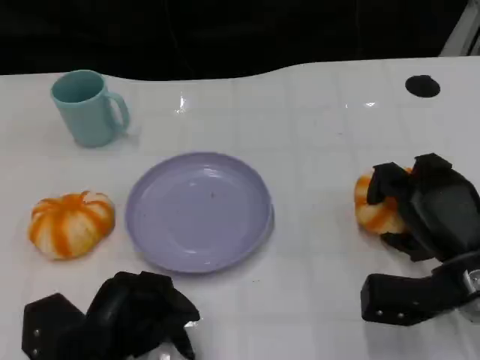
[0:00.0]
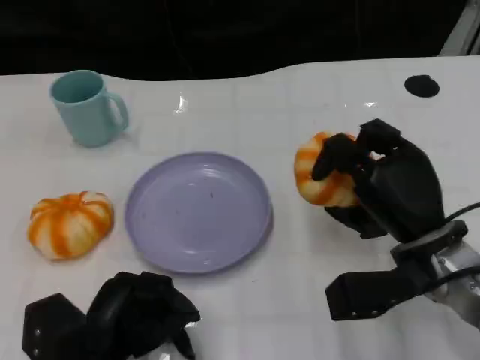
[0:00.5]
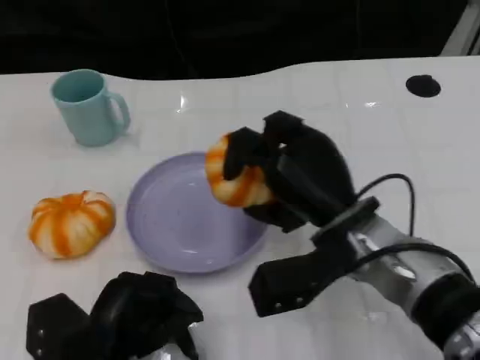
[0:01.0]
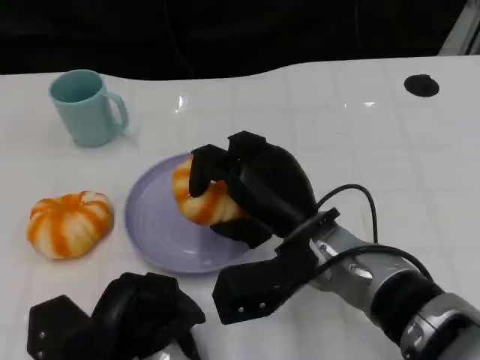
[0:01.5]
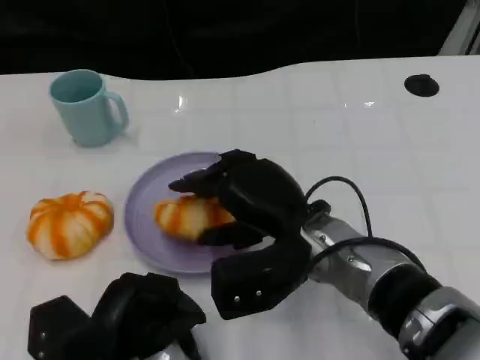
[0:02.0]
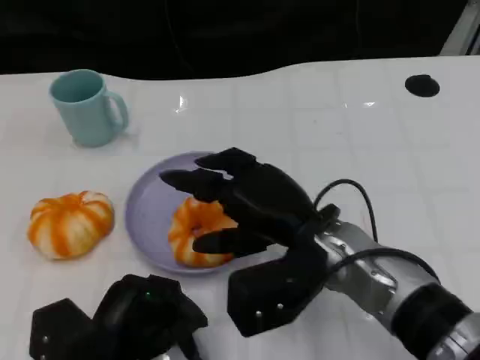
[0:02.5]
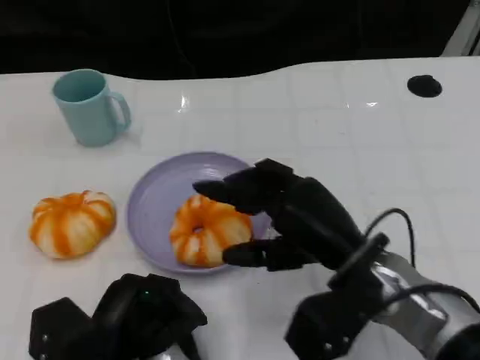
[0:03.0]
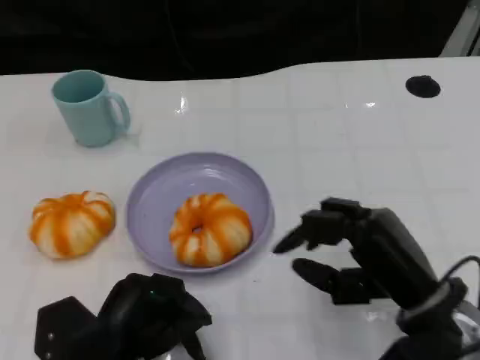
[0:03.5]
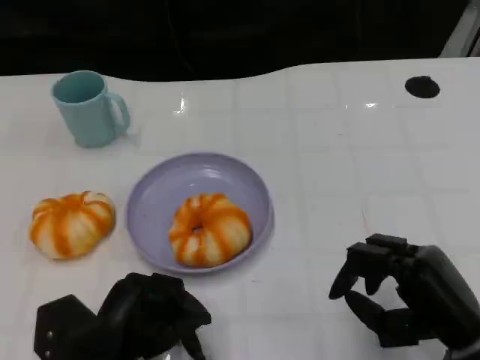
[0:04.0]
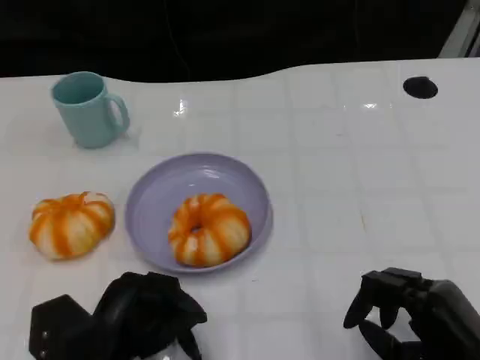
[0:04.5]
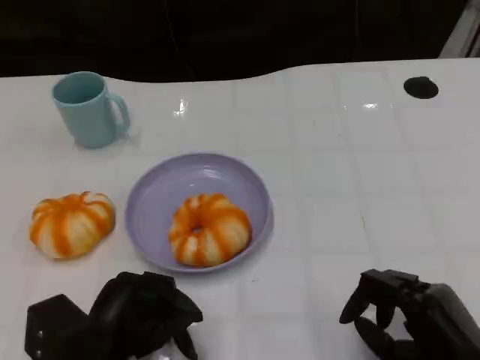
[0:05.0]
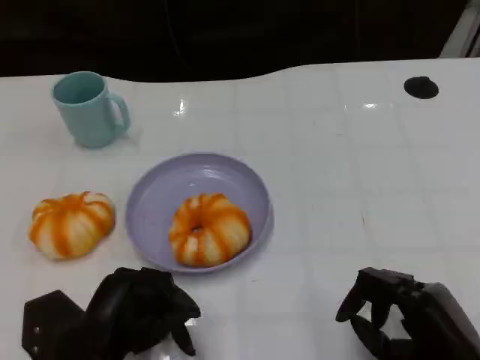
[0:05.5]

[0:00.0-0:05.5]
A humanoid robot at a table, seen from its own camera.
Task of the whole recording: Grasp the bread from the table and place it into the plate.
0:00.0 to 0:02.0: The right hand shifts approximately 15 cm to the left.
0:02.0 to 0:03.5: The right hand is displaced to the right and backward by about 15 cm.
0:03.5 to 0:05.5: The right hand travels backward by some 5 cm.

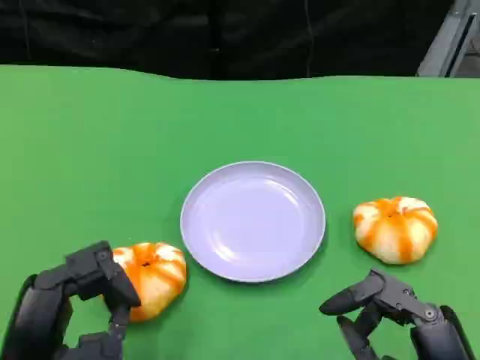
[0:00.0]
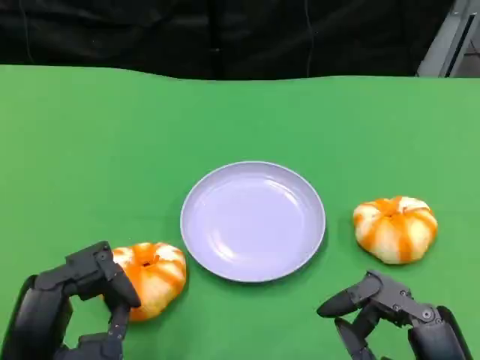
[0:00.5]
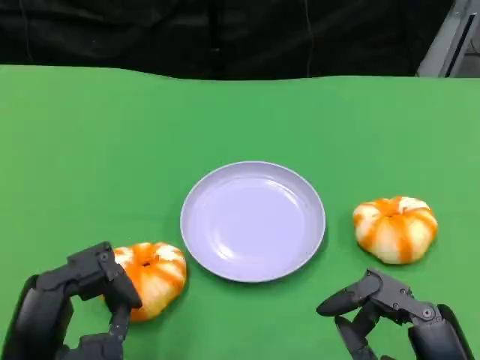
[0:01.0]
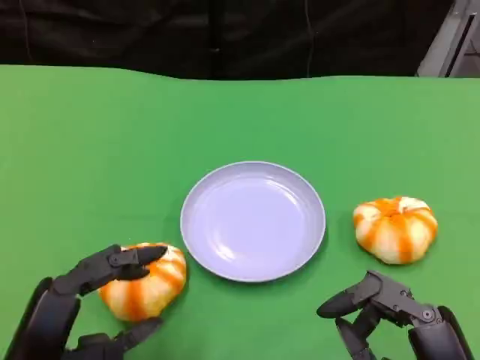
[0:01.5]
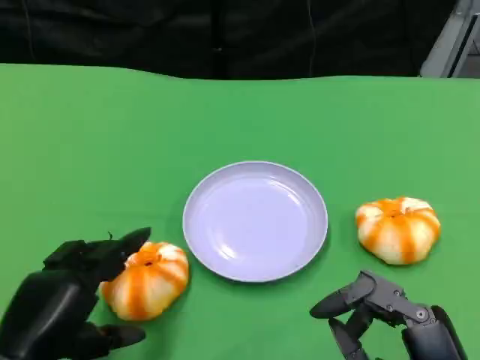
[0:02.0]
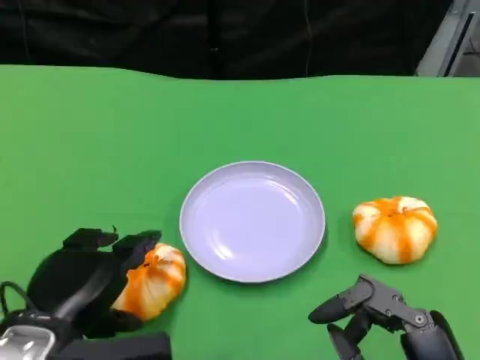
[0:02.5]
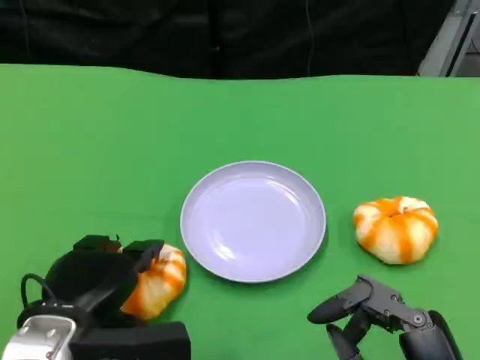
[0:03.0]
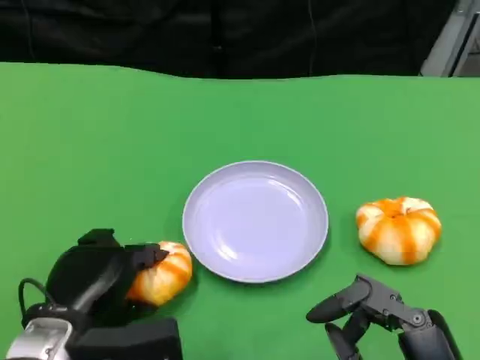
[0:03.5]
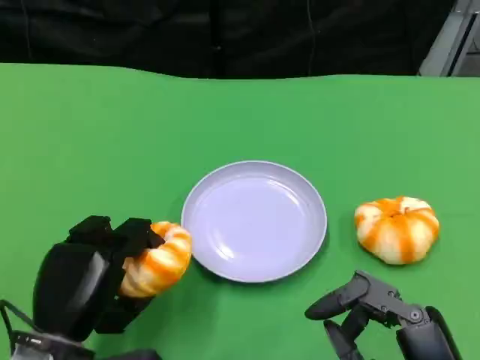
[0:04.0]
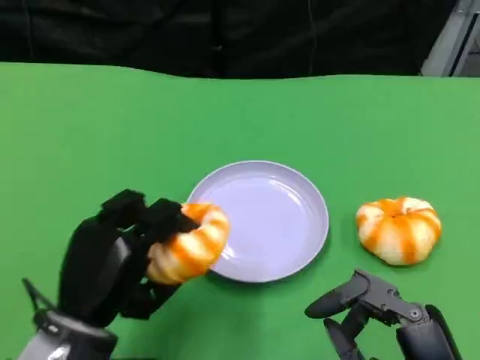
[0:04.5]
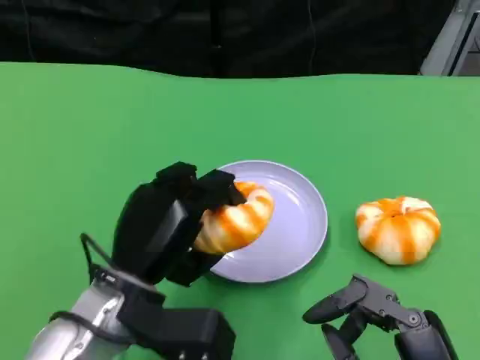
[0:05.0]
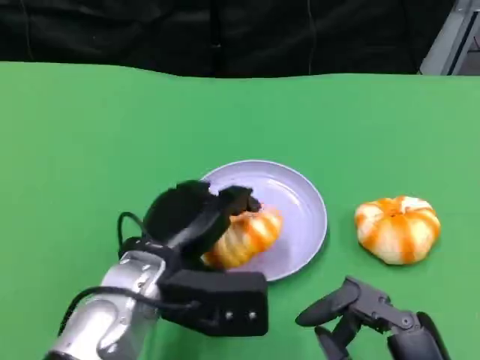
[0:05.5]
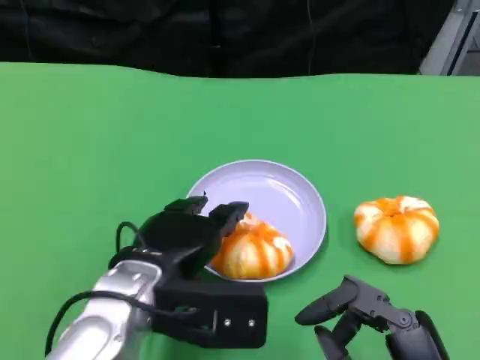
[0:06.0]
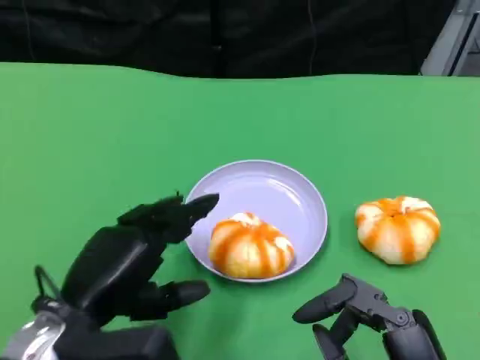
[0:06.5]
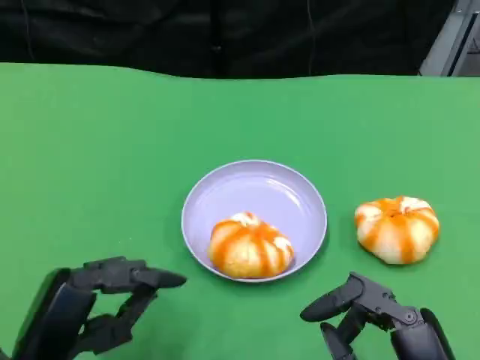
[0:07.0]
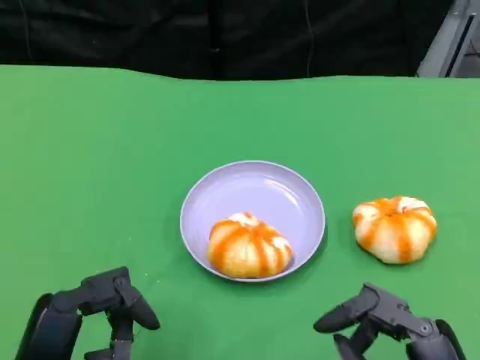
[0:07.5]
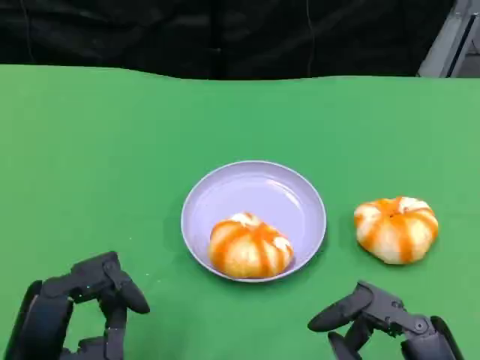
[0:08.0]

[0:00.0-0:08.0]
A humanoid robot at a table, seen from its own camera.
Task of the whole recording: Grasp the bread from the table and place it into the plate.
0:02.0 to 0:04.0: The left hand moves some 5 cm.
0:04.0 to 0:06.0: The left hand goes about 10 cm to the right and upward.
0:06.0 to 0:08.0: The left hand is displaced backward and to the left by roughly 15 cm.
